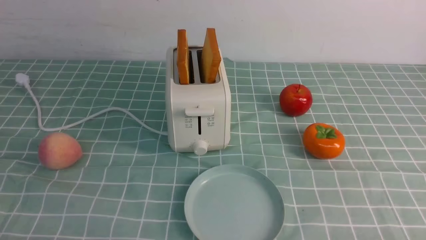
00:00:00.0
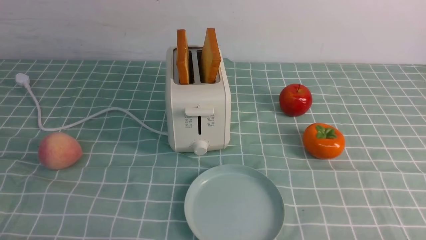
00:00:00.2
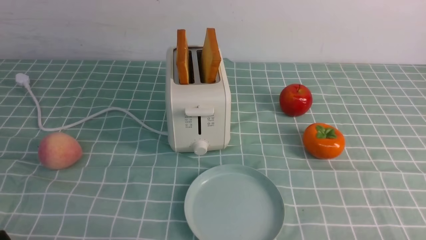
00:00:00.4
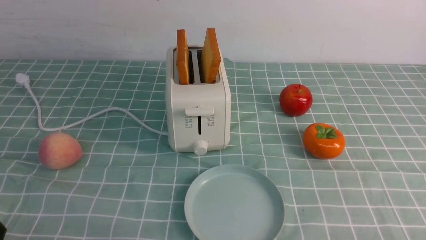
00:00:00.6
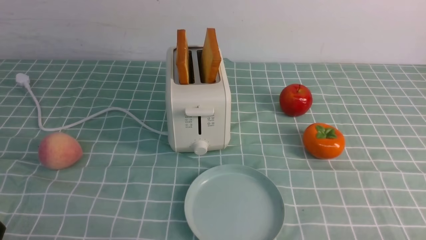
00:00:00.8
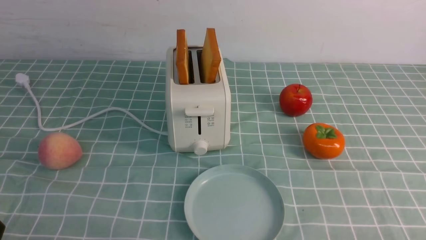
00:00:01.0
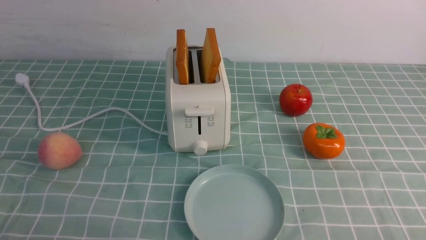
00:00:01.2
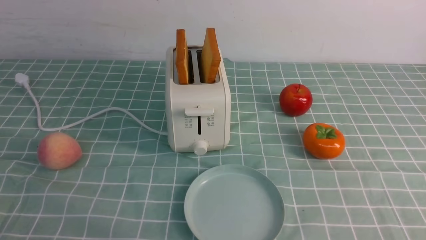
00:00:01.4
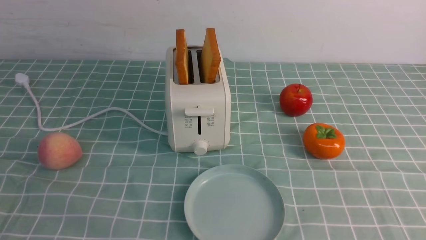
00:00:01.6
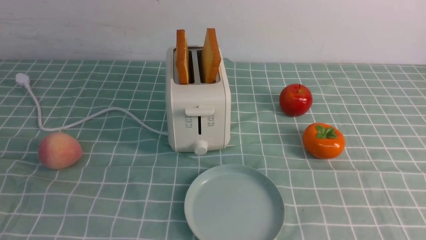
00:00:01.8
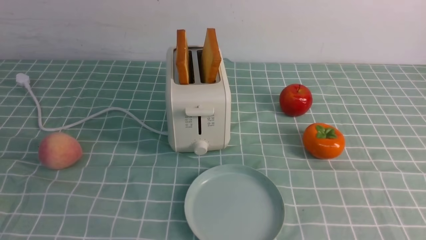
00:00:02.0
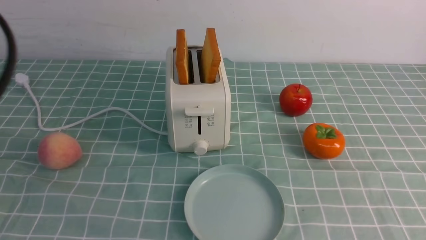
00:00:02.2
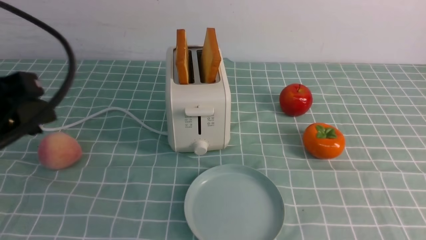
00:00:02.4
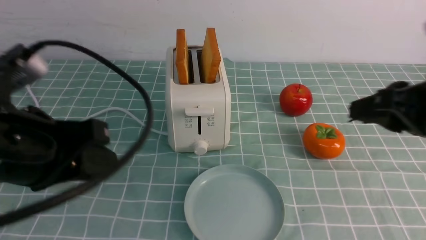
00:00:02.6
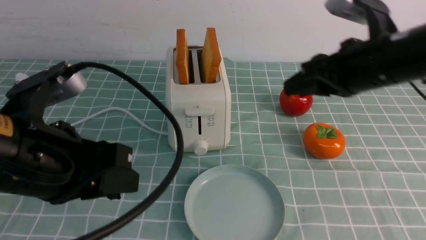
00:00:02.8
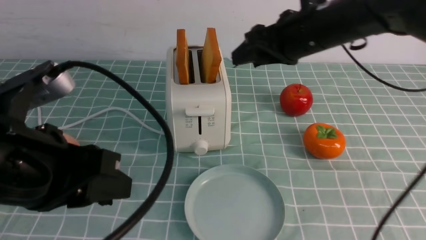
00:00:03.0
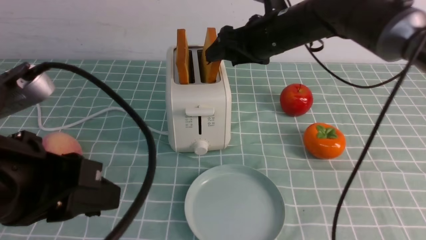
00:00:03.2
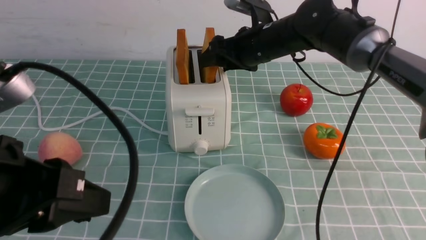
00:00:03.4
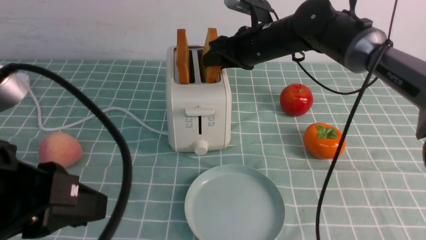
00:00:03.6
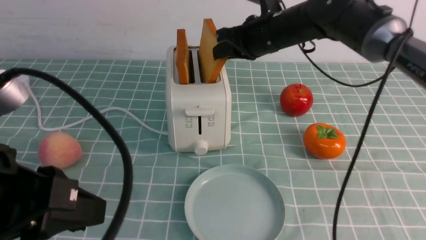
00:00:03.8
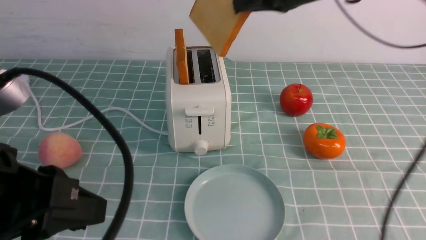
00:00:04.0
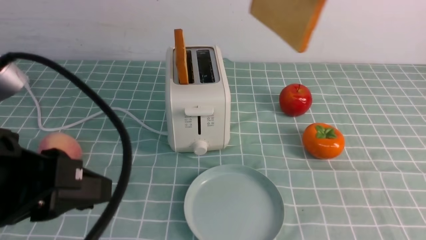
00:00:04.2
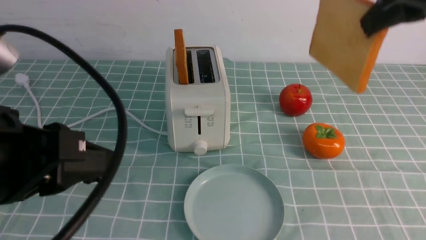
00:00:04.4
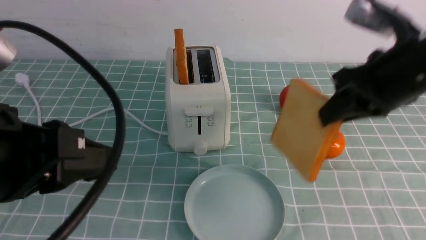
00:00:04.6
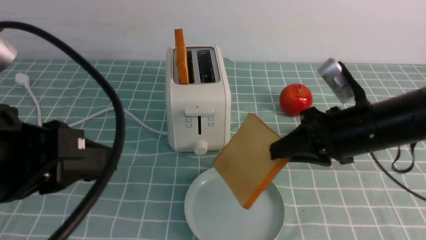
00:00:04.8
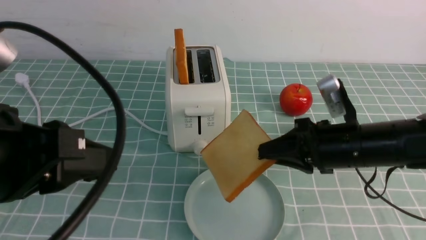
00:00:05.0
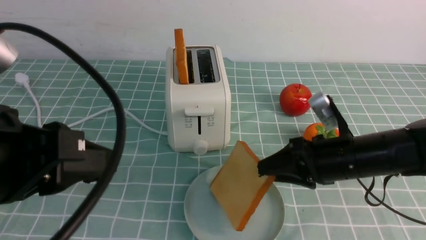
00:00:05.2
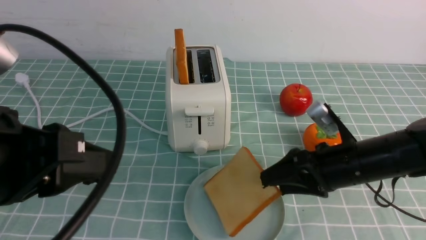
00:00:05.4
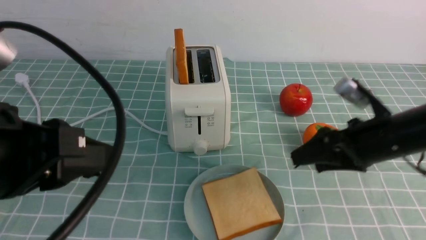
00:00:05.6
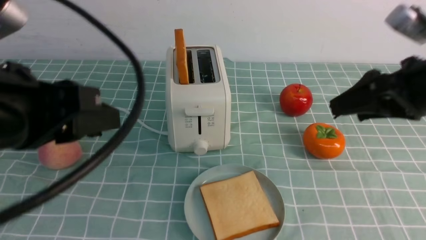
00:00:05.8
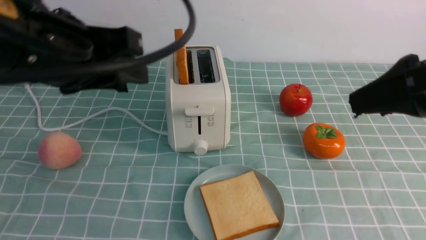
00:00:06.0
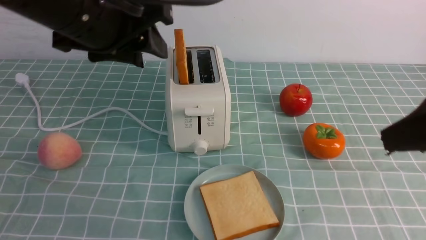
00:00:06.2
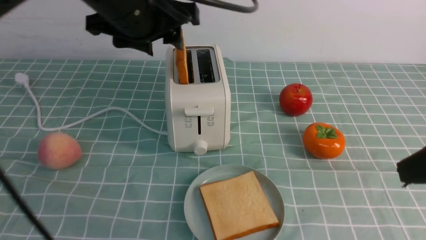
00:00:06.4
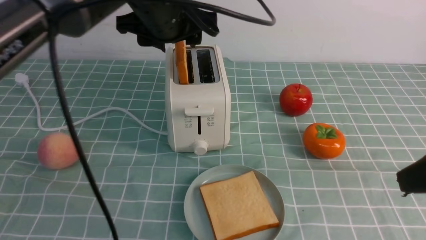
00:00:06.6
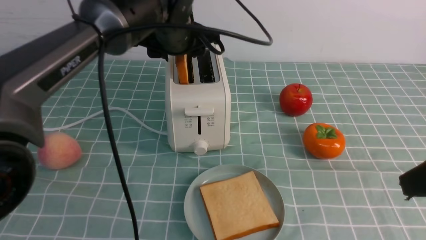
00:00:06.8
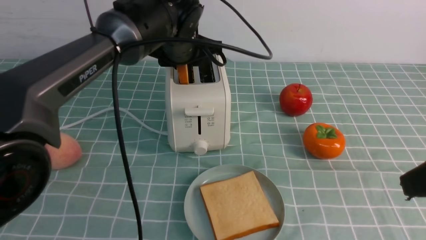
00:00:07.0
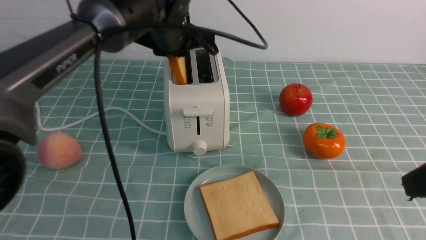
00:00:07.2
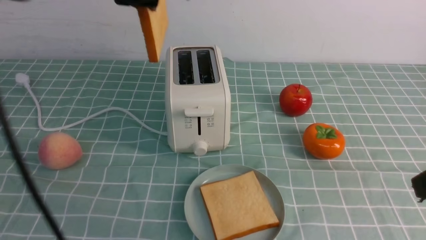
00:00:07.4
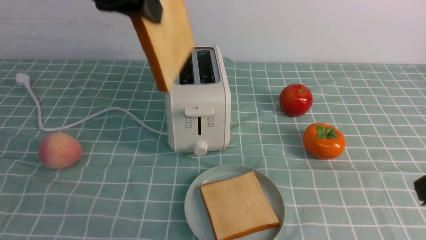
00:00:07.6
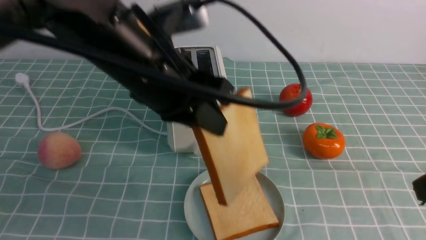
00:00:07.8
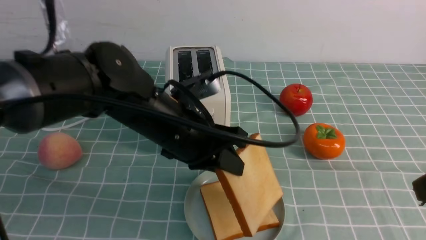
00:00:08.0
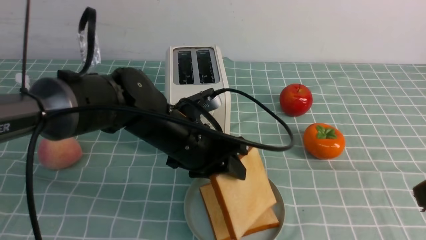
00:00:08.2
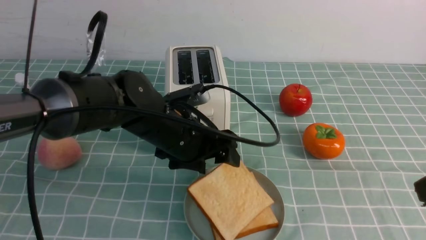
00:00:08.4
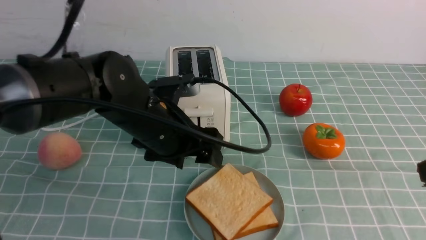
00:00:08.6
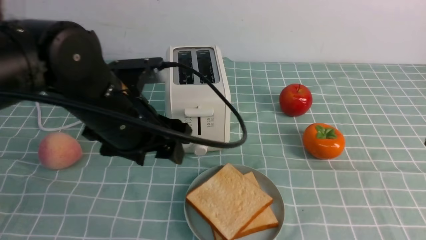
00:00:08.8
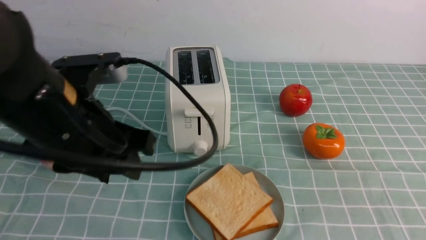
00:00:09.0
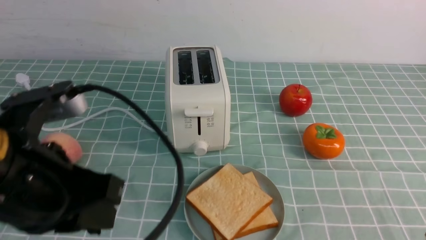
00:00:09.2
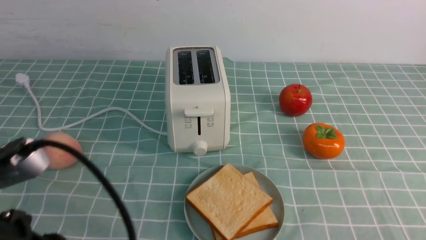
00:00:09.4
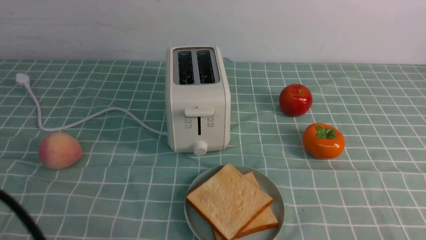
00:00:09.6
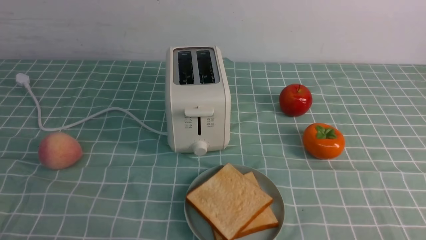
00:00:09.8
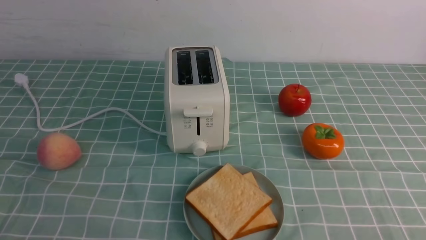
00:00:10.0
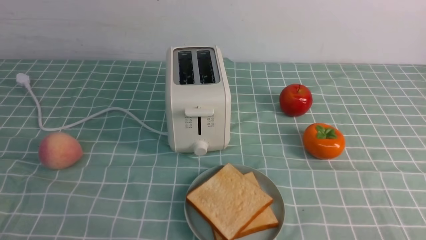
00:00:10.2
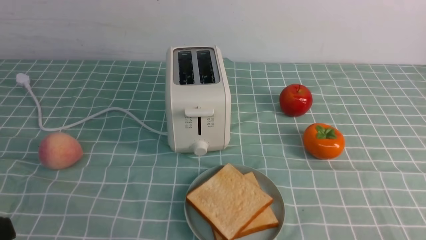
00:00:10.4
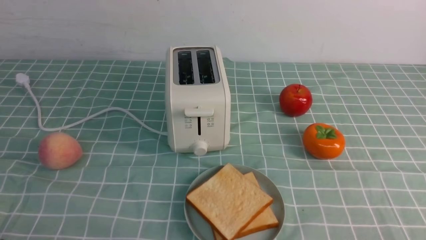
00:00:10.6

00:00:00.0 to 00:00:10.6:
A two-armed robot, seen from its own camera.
Task of the whole recording: take toasted bread from bread machine on blue coffee table place on plate.
Step, 00:00:00.0 to 00:00:03.8: use the right arm to take out a slice of bread.
Step, 00:00:04.0 to 00:00:05.6: use the right arm to put a slice of bread into the plate.
Step, 00:00:05.8 to 00:00:07.2: use the left arm to take out a slice of bread.
Step, 00:00:07.4 to 00:00:08.4: use the left arm to put a slice of bread into the empty plate.
00:00:01.6 to 00:00:03.0: The right gripper heads forward and to the left, covering about 35 cm; the left gripper moves forward, to the right and upward, roughly 15 cm.
00:00:03.0 to 00:00:04.6: The right gripper is displaced to the right by approximately 5 cm, reaches about 10 cm forward, then returns, and closes its fingers.
00:00:04.6 to 00:00:06.0: The right gripper shifts some 5 cm backward, travels downward and back again, about 20 cm each way, and opens its fingers; the left gripper is displaced forward by about 5 cm.
00:00:06.0 to 00:00:07.6: The right gripper shifts about 10 cm backward. The left gripper goes approximately 15 cm forward and to the right.
00:00:07.6 to 00:00:09.0: The right gripper is displaced backward by roughly 5 cm, and closes its fingers; the left gripper is displaced downward and backward by approximately 15 cm, and opens.
00:00:09.0 to 00:00:10.6: The right gripper shifts some 10 cm downward, while the left gripper heads backward, to the left and downward, covering roughly 25 cm, and closes up.

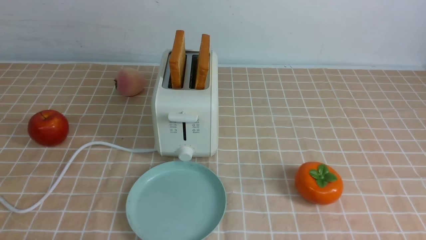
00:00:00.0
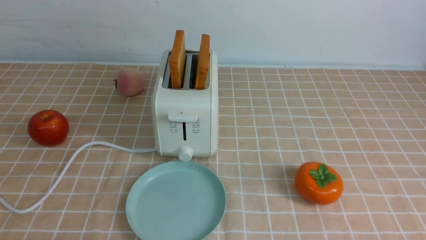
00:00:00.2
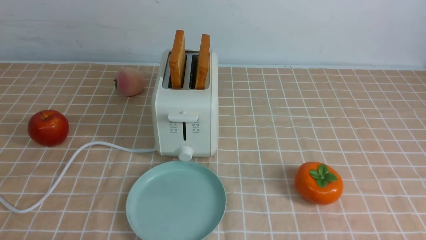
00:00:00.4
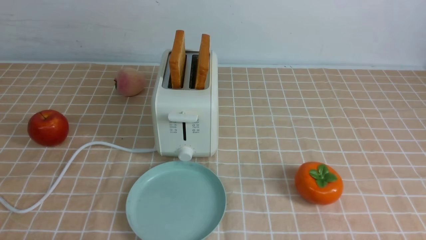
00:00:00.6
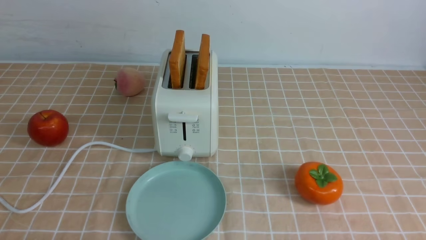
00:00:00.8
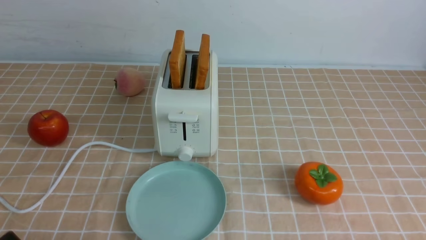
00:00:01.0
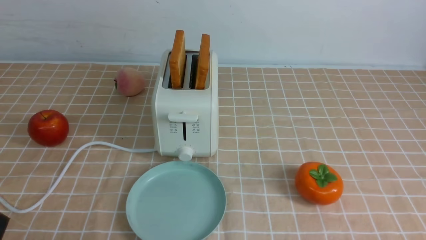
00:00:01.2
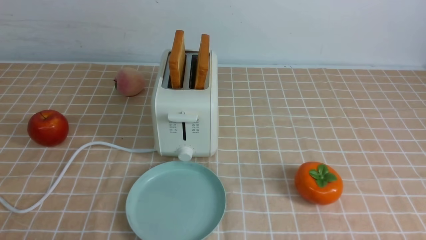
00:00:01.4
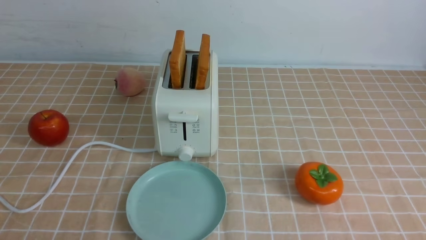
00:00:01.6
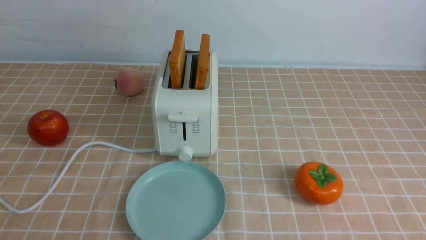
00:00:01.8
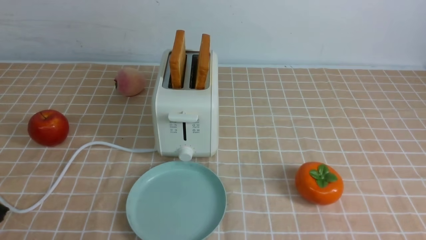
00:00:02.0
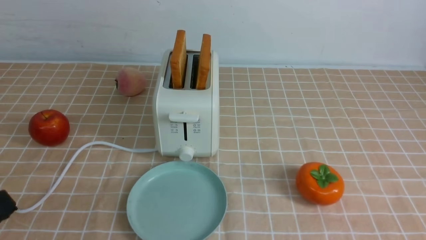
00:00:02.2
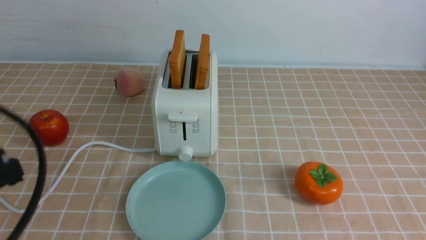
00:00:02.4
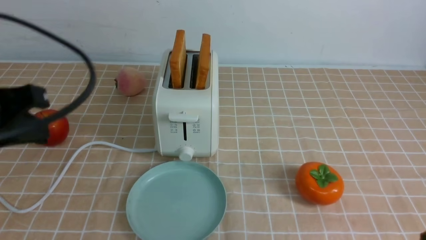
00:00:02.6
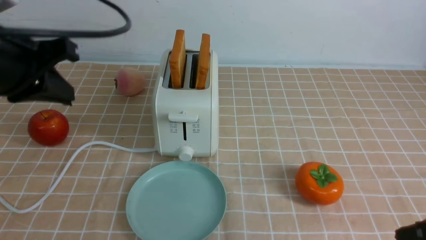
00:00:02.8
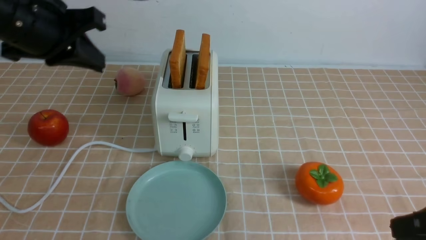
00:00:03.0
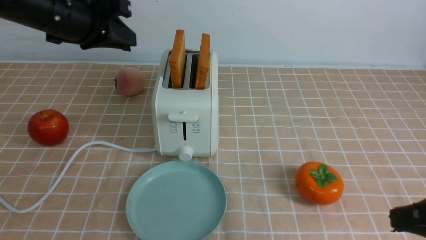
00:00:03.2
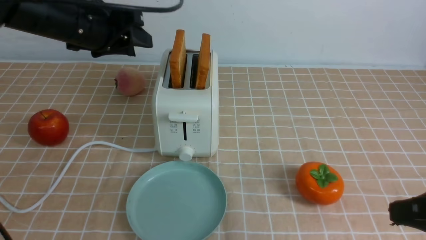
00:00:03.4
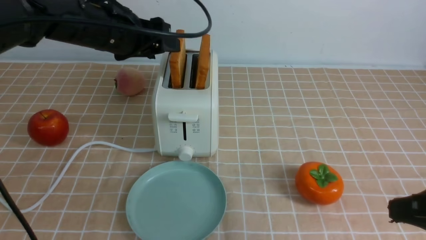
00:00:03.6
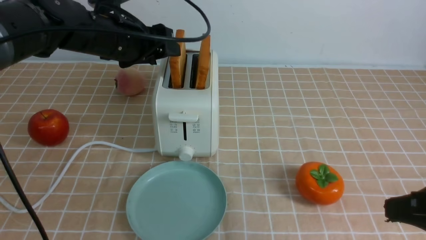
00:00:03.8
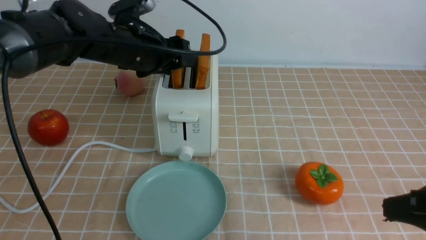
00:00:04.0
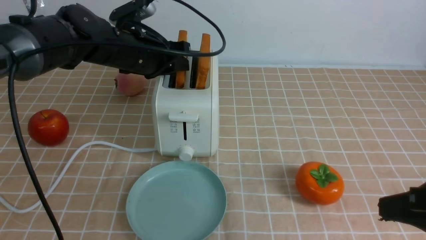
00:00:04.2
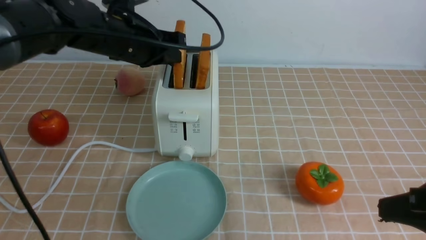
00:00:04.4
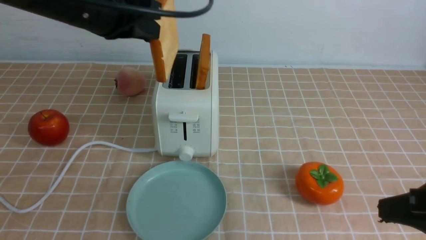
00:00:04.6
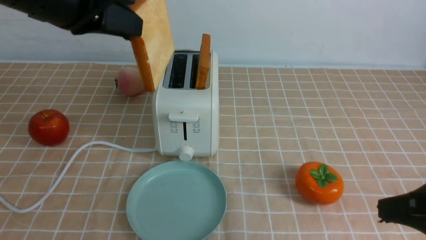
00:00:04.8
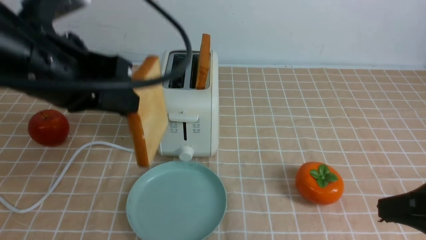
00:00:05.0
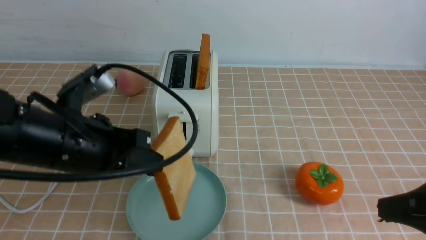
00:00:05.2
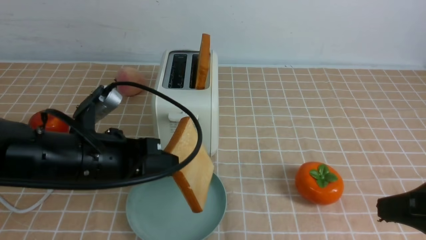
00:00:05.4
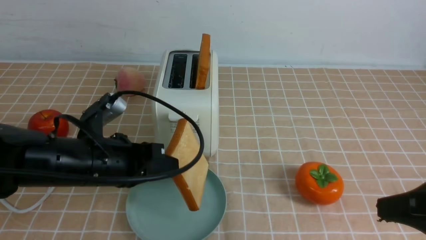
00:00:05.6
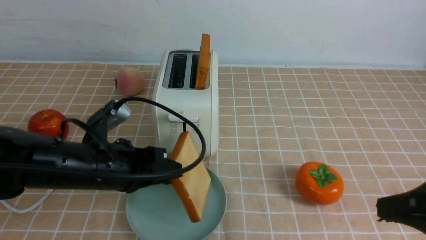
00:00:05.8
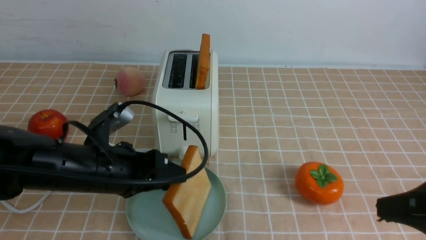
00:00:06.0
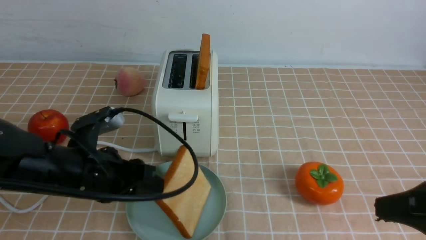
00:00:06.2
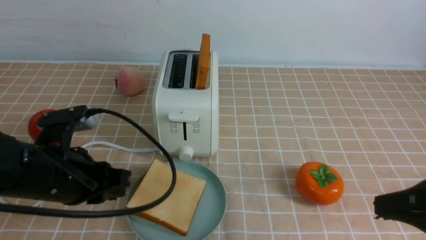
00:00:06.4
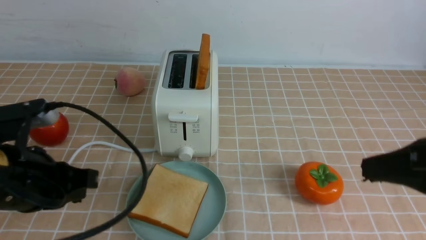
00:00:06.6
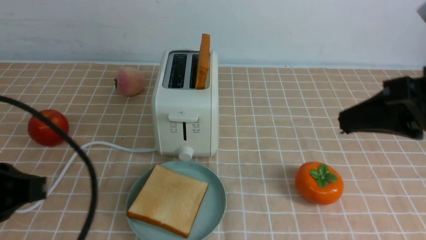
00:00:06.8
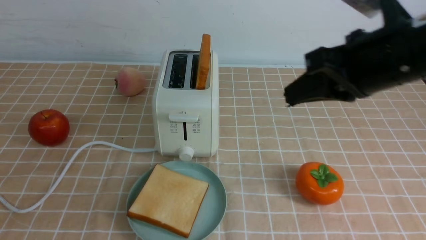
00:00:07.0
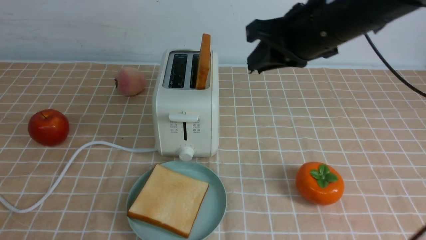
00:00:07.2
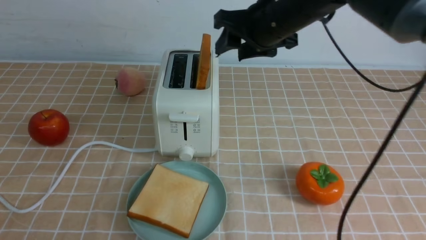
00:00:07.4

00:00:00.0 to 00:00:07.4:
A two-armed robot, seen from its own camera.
Task of the whole recording: take toasted bread from bread machine on light coffee tablecloth place on plate.
Step, 00:00:00.0 to 00:00:04.4: use the left arm to take out a slice of bread.
Step, 00:00:04.6 to 00:00:06.4: use the left arm to put a slice of bread into the empty plate.
00:00:01.4 to 00:00:03.0: The left gripper travels forward and upward by some 30 cm, and closes, while the right gripper travels upward, forward and to the left by about 15 cm, and closes its fingers.
00:00:03.0 to 00:00:04.4: The left gripper travels forward and to the right by approximately 10 cm, and opens, then closes again.
00:00:04.4 to 00:00:06.0: The left gripper travels backward and downward by roughly 20 cm, and opens.
00:00:06.0 to 00:00:07.4: The left gripper moves backward, about 25 cm, and closes, while the right gripper heads forward and to the left, covering about 30 cm, and opens.
